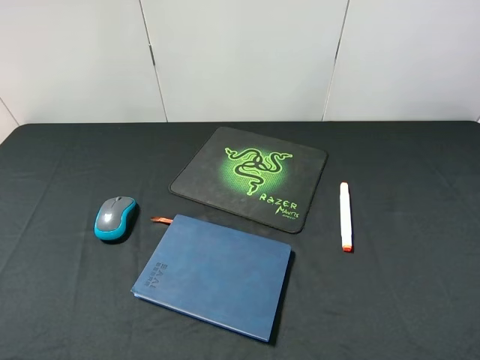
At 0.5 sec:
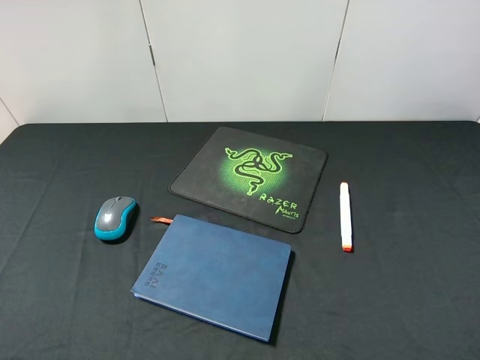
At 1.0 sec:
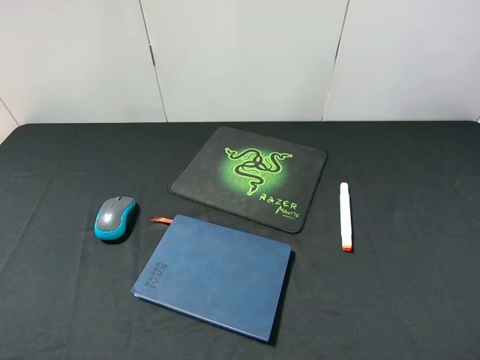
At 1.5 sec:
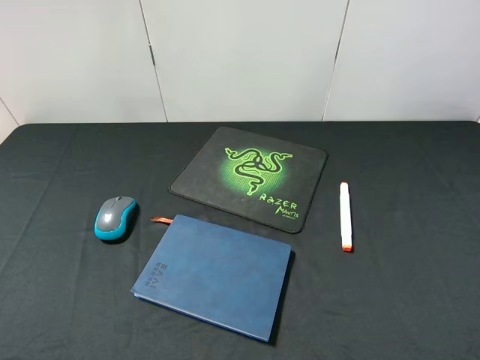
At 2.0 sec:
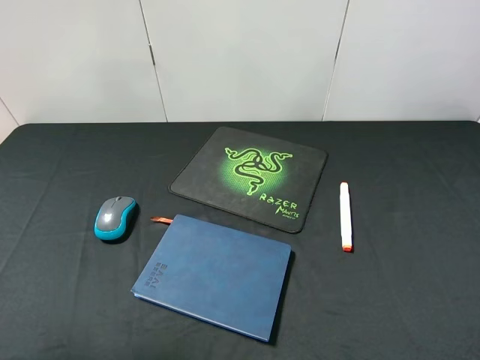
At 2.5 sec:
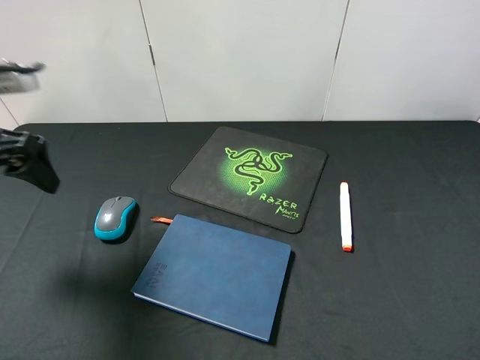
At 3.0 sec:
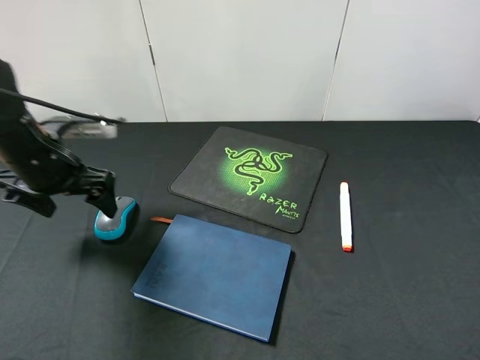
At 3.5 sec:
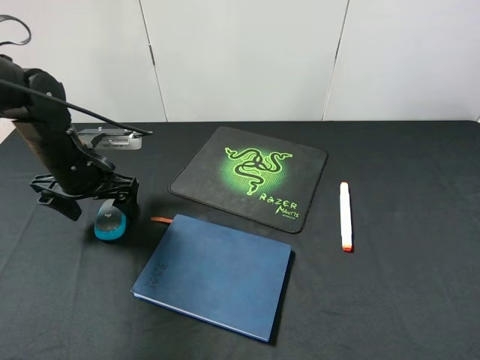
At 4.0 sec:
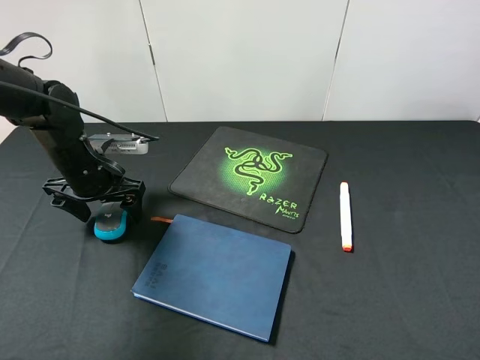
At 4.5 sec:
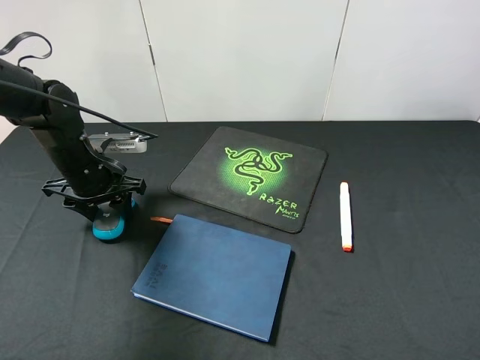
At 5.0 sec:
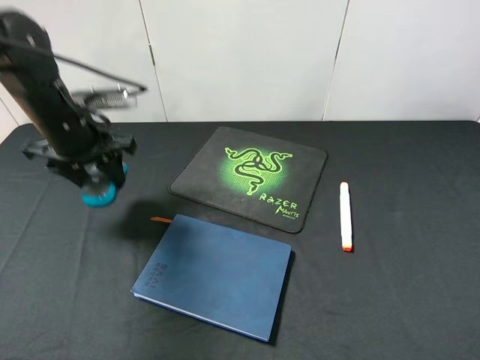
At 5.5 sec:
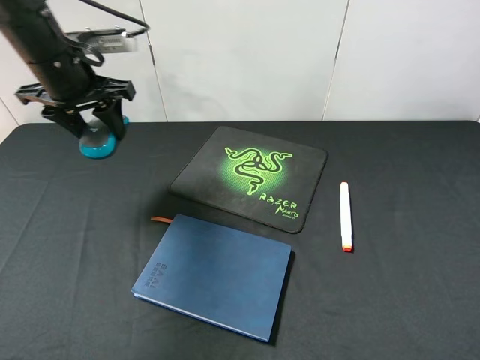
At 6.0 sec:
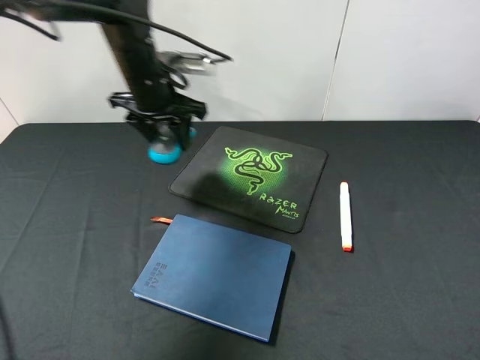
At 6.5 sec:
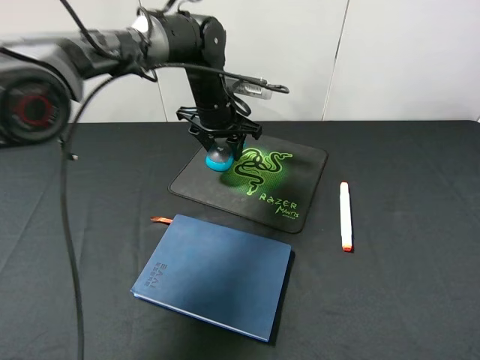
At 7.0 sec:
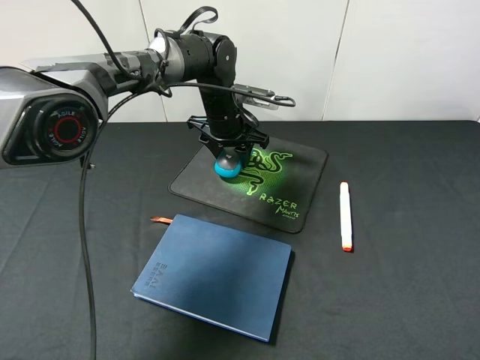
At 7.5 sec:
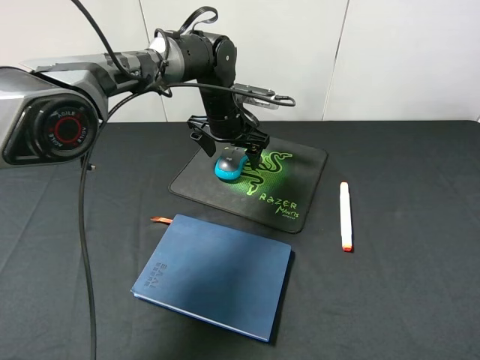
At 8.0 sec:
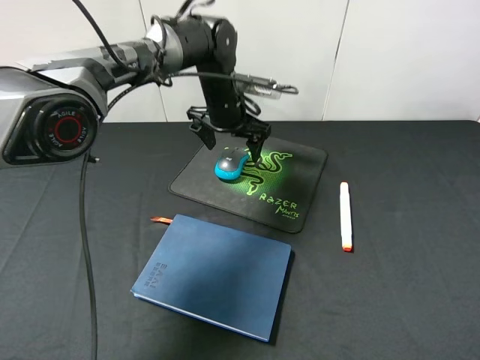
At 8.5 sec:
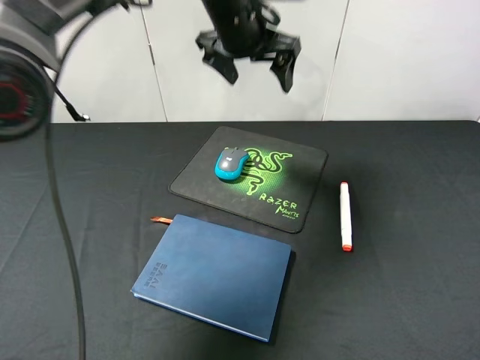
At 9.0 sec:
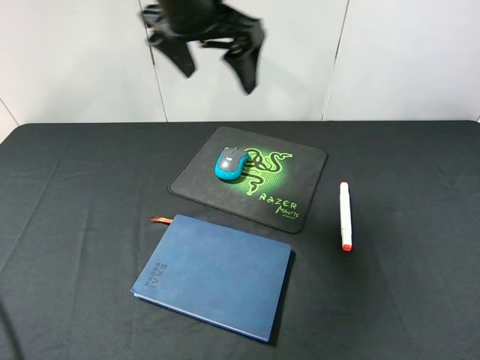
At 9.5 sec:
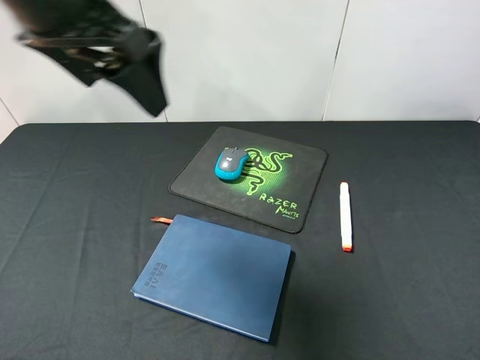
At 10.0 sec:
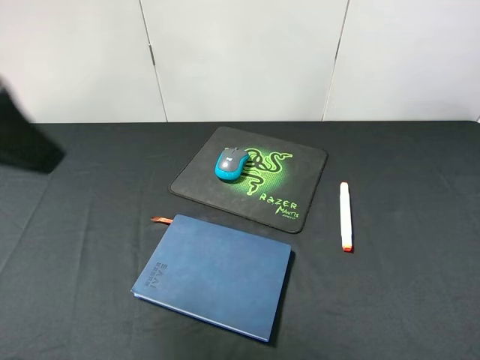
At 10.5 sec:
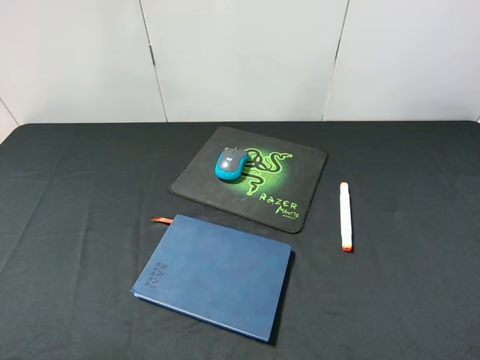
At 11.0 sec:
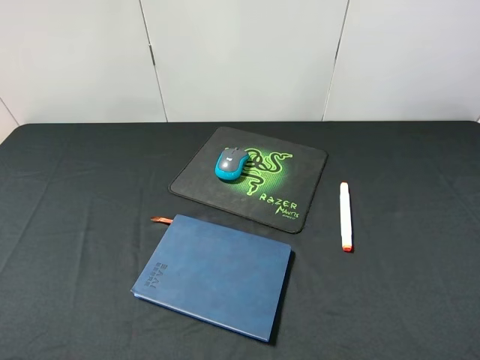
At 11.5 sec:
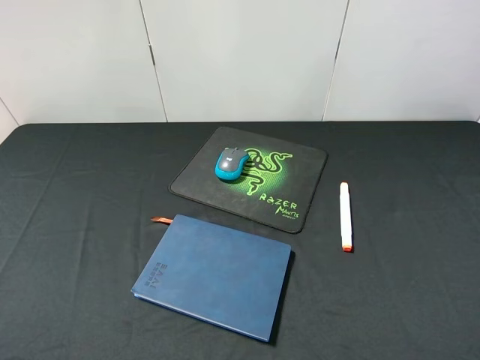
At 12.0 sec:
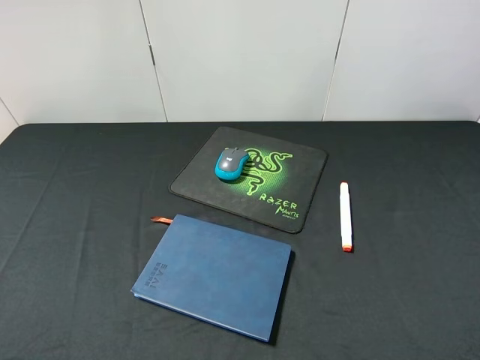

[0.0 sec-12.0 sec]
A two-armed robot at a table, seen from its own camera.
Step, 0.0 sec to 4.5 sec: Pick up the mouse with left gripper.
Step, 5.0 sec to 7.5 sec: Place the mouse on the mouse pad with left gripper.
2.0 sec to 4.0 sec: The left gripper shifts roughly 30 cm downward and forward.
4.0 sec to 6.0 sec: The left gripper shifts approximately 15 cm to the right, upward and forward, and closes its fingers.
6.0 sec to 8.0 sec: The left gripper shifts about 10 cm to the right, downward and forward, and opens.
8.0 sec to 10.0 sec: The left gripper travels backward, upward and to the left by about 40 cm.
10.0 sec to 12.0 sec: The left gripper moves backward, to the left and downward, some 20 cm.

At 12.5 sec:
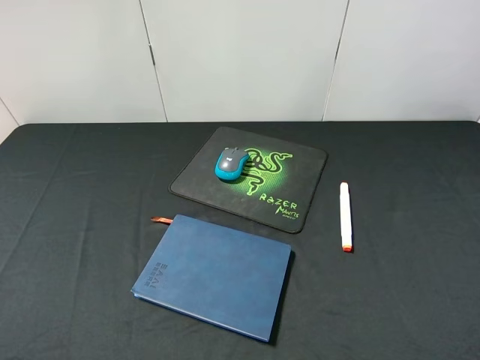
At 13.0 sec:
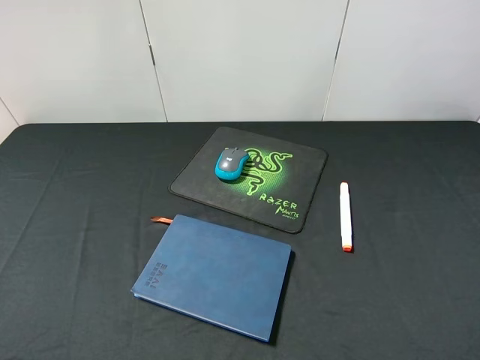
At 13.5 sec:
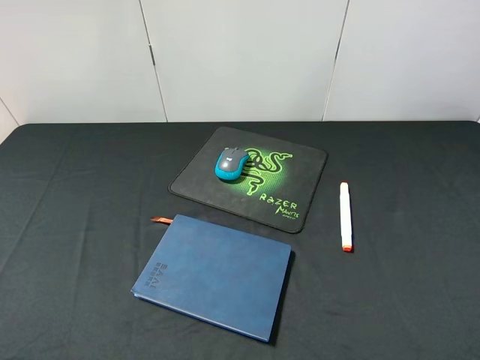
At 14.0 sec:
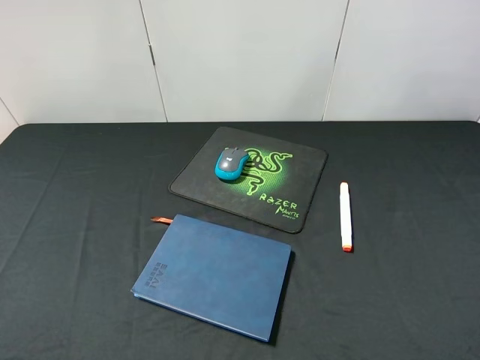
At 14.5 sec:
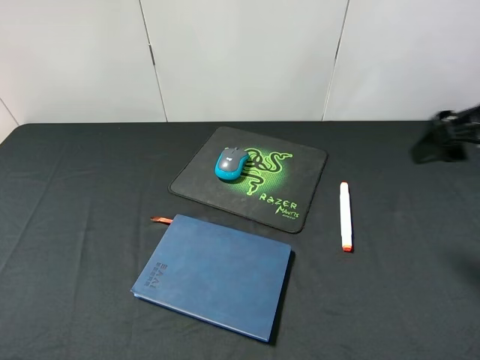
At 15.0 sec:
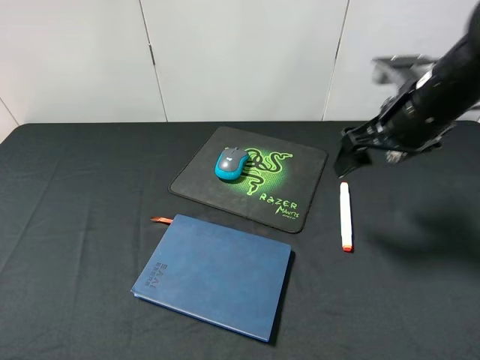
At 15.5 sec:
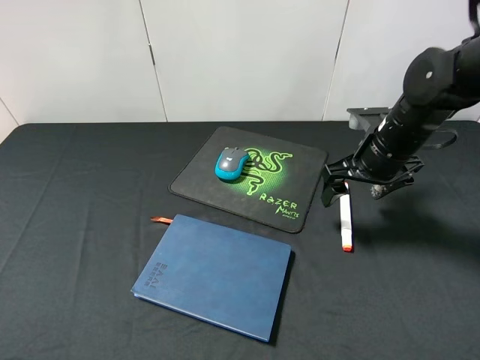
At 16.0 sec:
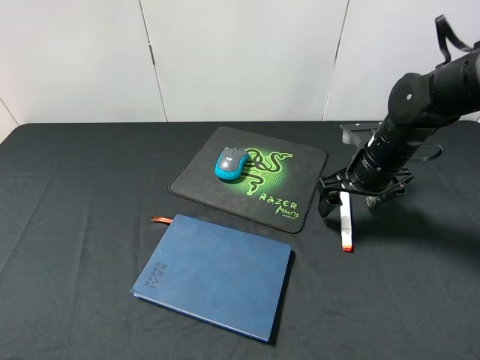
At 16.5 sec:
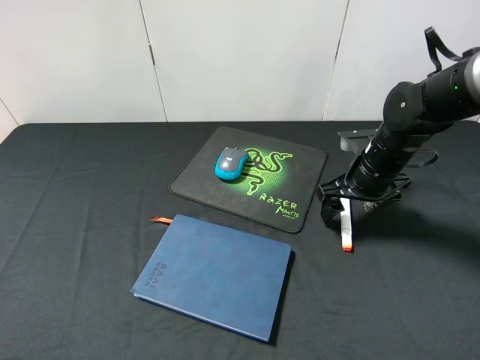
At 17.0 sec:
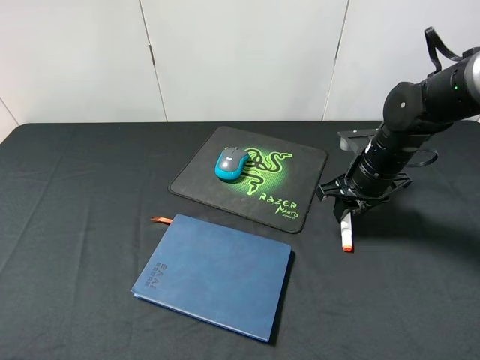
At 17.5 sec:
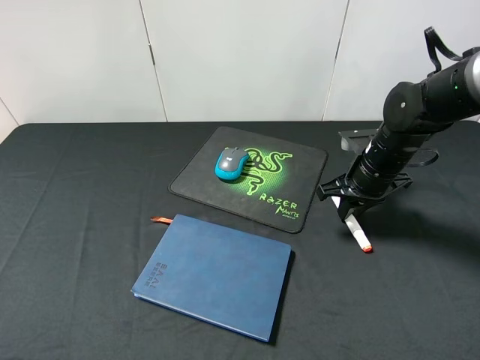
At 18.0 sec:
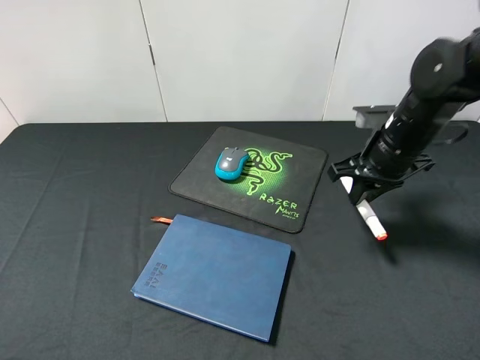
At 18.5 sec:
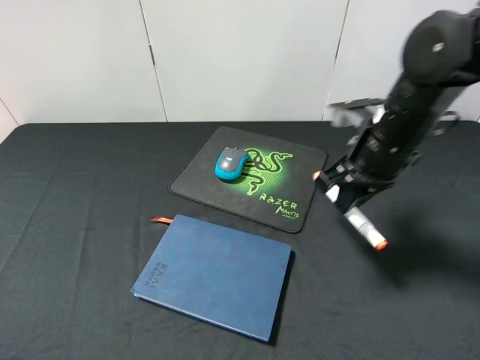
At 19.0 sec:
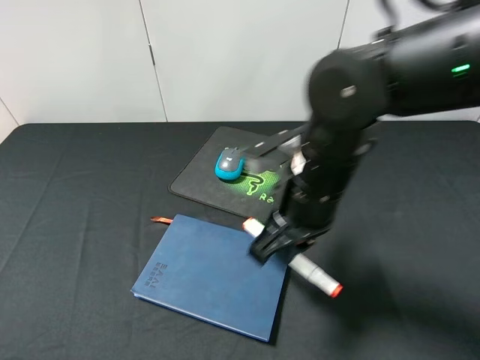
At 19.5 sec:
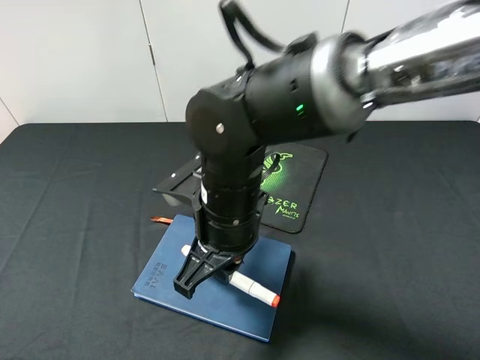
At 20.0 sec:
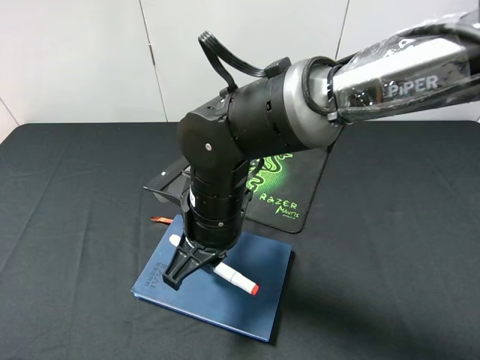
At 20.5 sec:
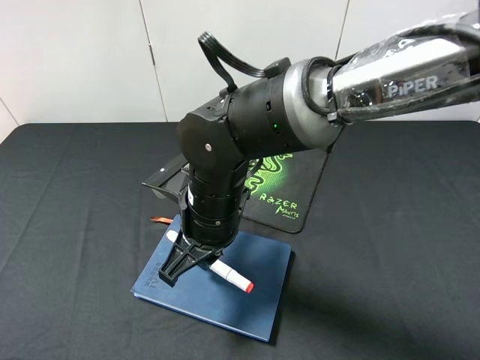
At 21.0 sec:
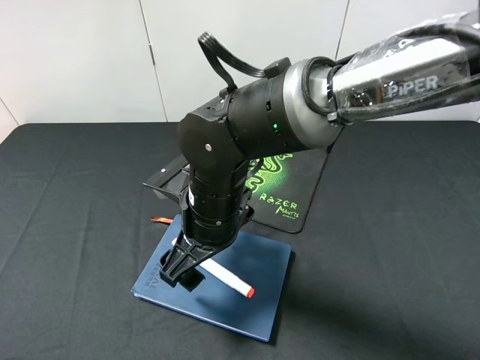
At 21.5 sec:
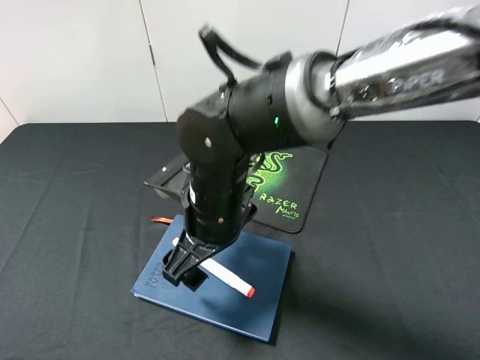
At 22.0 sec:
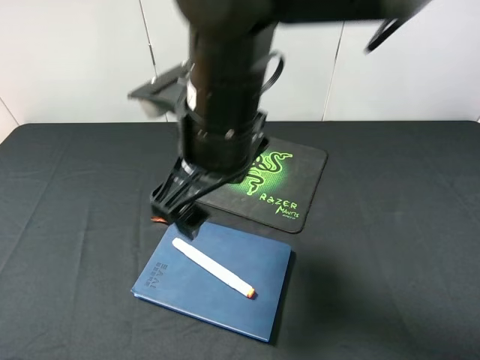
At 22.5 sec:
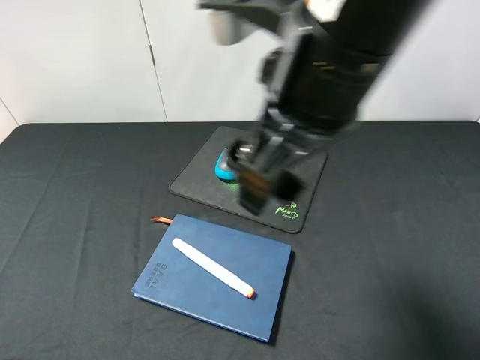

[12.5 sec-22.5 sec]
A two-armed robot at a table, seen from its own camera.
Step, 12.5 sec to 17.5 sec: Pick up the marker pen with right gripper.
Step, 18.0 sec to 21.0 sec: Place the marker pen on the notebook with right gripper.
12.5 sec to 14.5 sec: The right gripper moves forward, roughly 25 cm.
14.5 sec to 16.5 sec: The right gripper travels downward, forward and to the left by roughly 20 cm.
16.5 sec to 18.5 sec: The right gripper moves upward and backward, roughly 10 cm, and closes its fingers.
18.5 sec to 20.5 sec: The right gripper travels to the left by some 20 cm.
20.5 sec to 22.5 sec: The right gripper shifts approximately 20 cm upward and to the right, and opens its fingers.

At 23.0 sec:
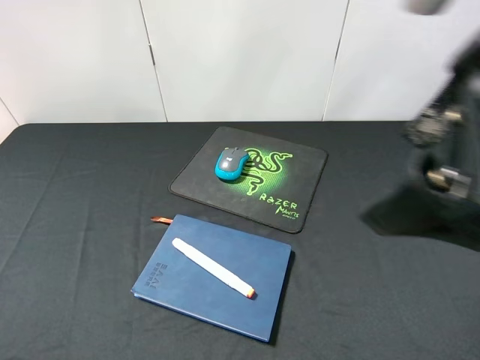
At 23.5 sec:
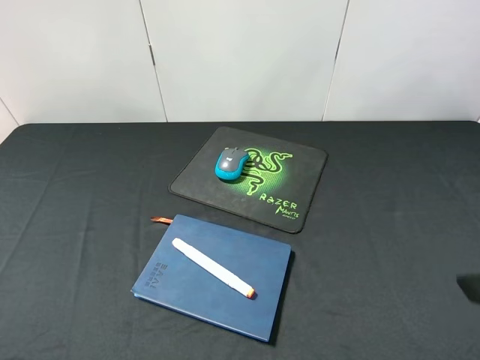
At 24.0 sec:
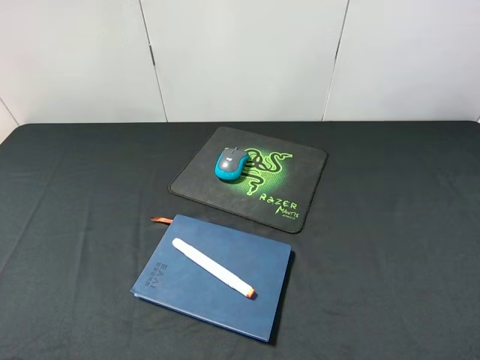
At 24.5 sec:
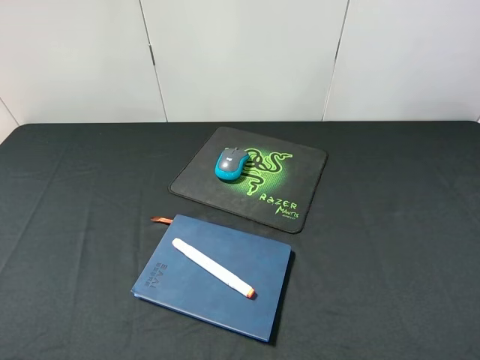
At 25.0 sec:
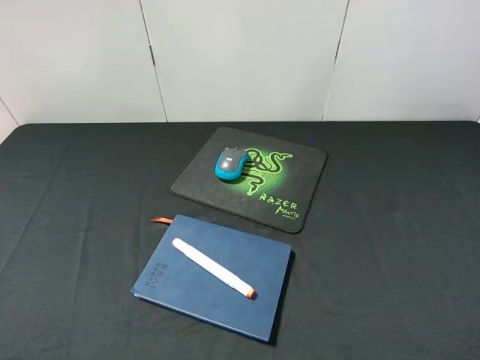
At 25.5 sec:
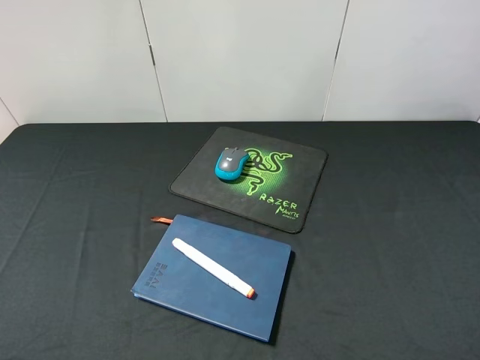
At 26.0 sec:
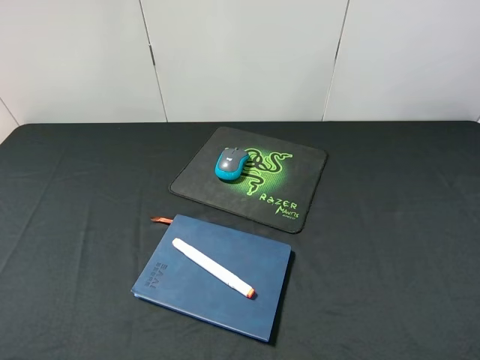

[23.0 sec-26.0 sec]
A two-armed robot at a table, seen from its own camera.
23.0 sec to 24.5 sec: The right gripper travels to the right, backward and downward by about 20 cm.
24.5 sec to 26.0 sec: Both grippers stay about where they are.
